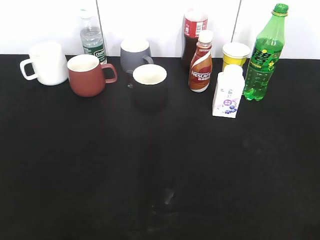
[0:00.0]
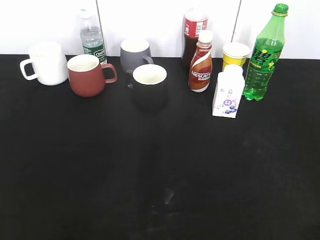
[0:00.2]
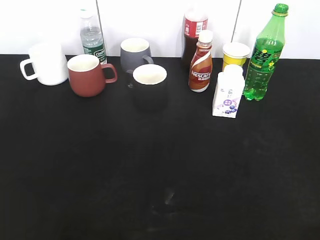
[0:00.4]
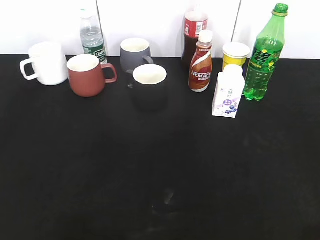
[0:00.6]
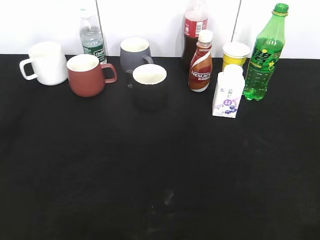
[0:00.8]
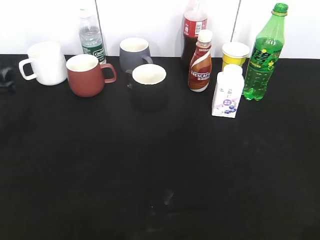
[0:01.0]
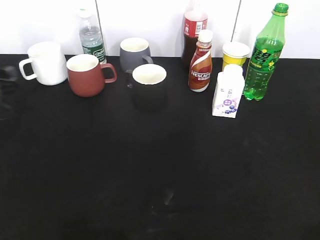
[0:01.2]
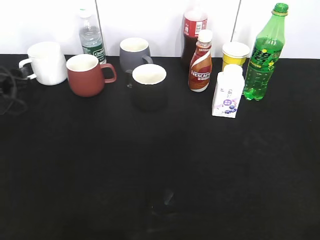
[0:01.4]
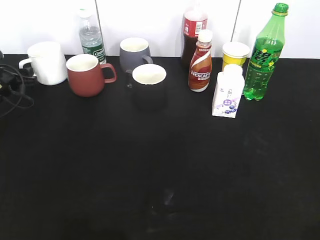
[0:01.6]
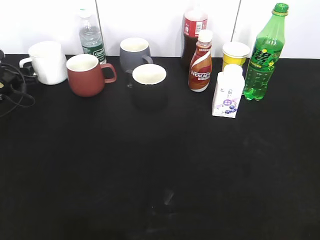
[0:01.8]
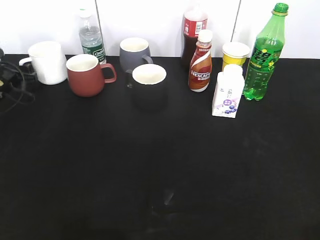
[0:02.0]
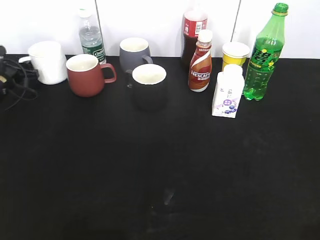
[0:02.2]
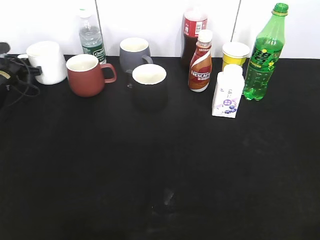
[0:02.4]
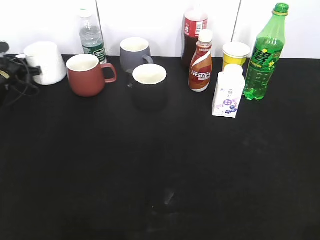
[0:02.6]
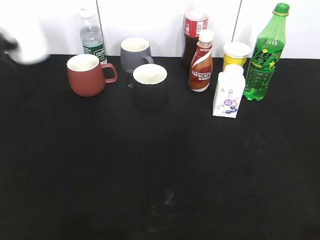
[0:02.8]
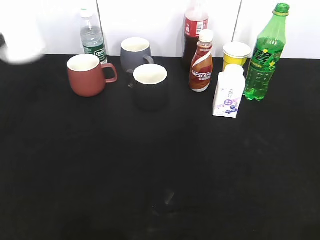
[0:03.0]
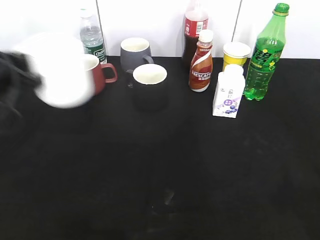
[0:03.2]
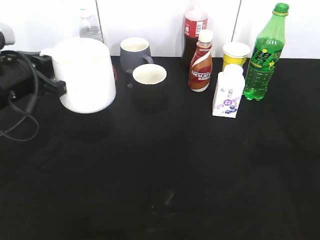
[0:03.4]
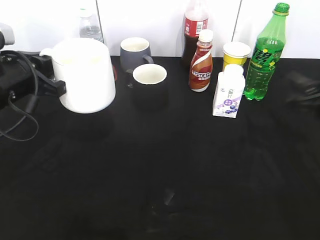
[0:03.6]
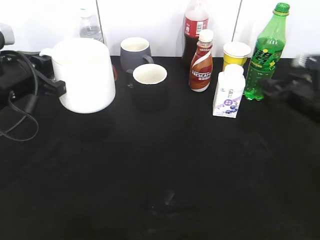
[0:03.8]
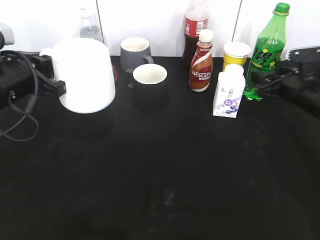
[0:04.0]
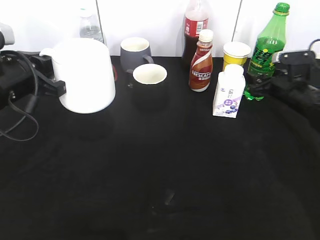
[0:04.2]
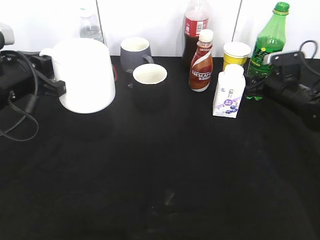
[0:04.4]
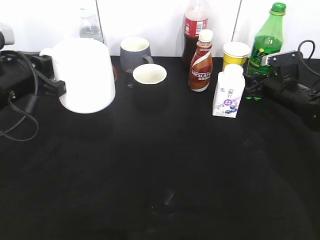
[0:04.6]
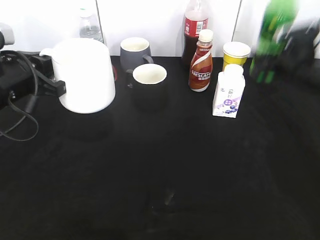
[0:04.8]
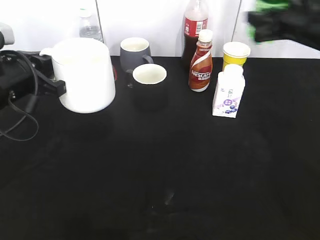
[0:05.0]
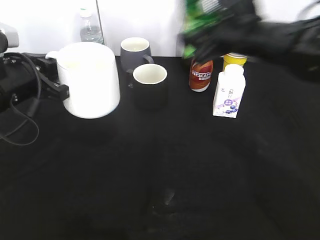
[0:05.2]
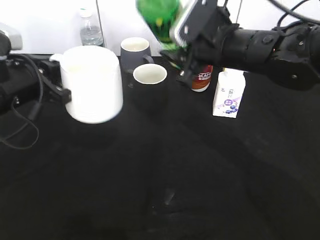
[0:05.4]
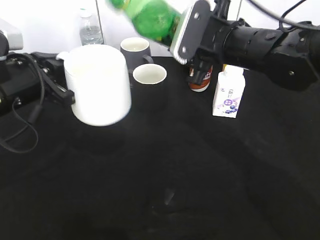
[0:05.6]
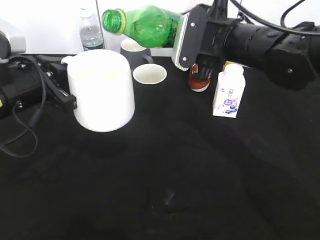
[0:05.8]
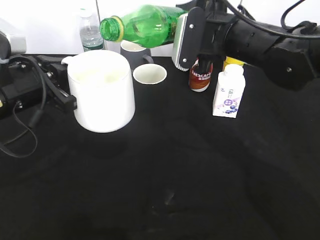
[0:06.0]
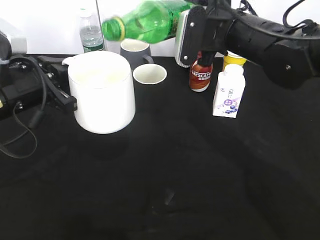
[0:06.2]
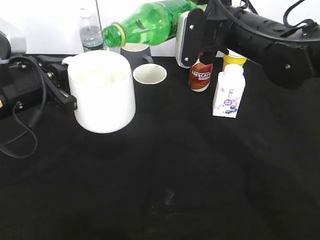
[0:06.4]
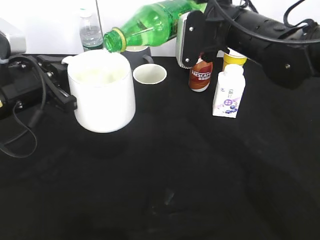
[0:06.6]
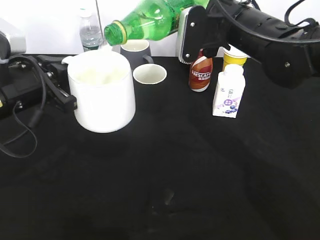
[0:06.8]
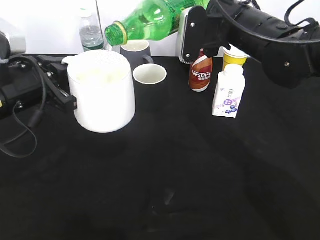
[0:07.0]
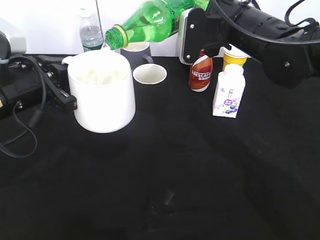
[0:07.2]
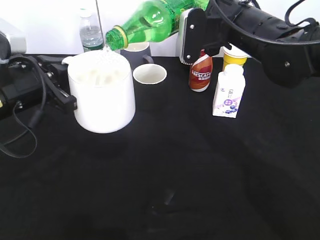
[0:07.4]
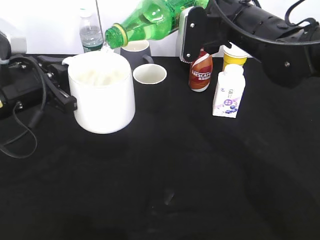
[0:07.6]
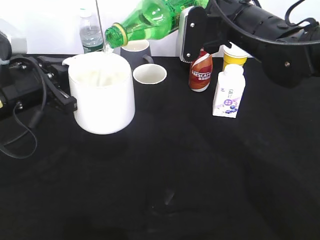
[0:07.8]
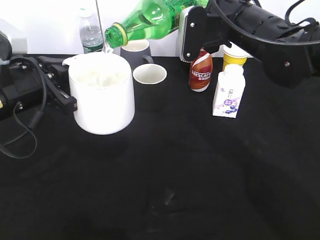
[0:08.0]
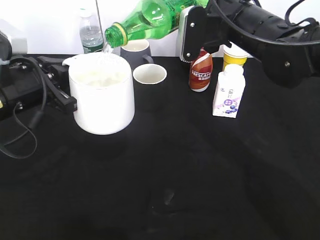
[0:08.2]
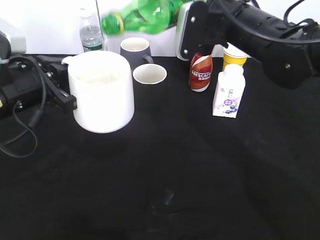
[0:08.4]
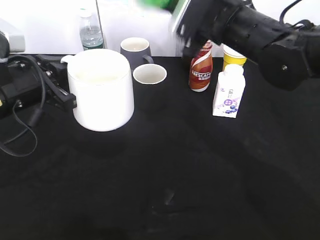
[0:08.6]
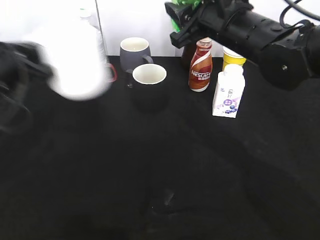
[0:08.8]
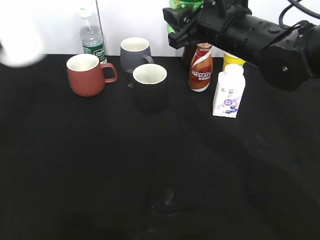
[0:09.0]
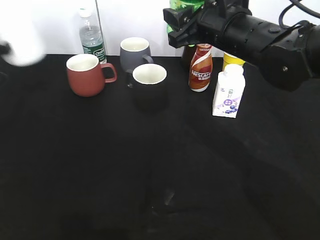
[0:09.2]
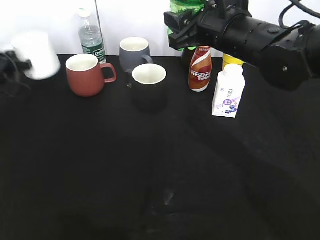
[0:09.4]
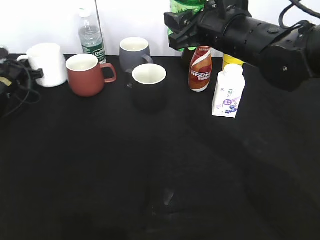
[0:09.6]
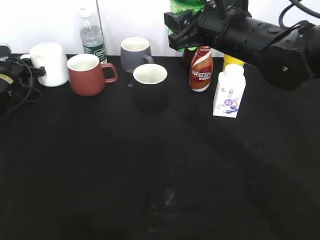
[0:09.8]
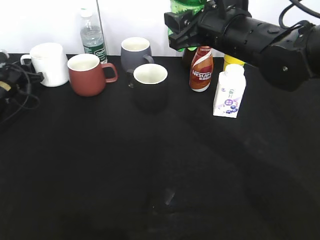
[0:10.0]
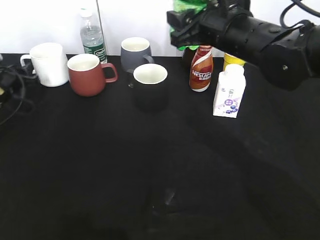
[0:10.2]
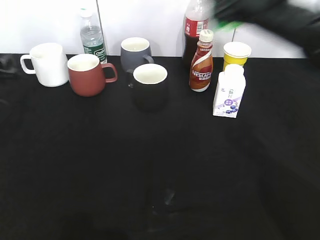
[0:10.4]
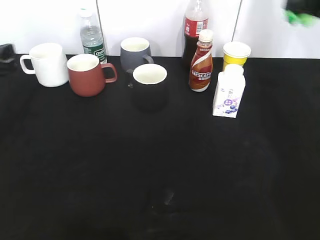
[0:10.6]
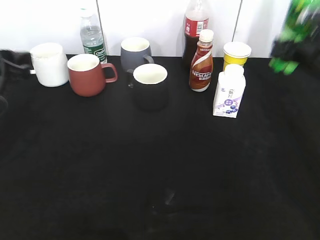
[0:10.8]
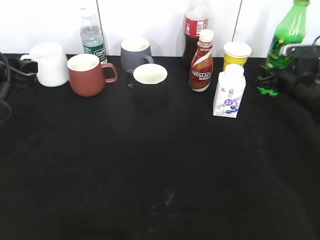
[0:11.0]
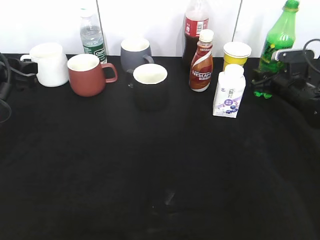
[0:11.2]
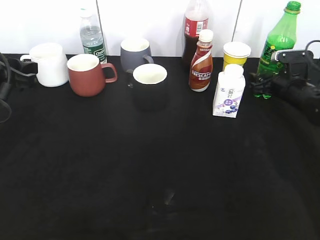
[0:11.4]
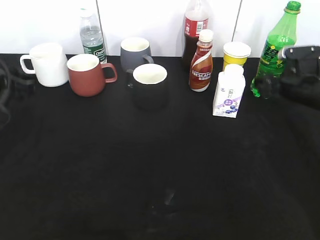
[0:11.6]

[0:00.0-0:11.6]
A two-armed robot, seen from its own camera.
Step, 0:00.0 to 0:02.4: Grasp the white cup with left gripper.
Step, 0:02.8 to 0:03.2: Lift the white cup with left gripper.
Step, 0:03.6 to 0:04.4: Grasp the bottle with sprite with right gripper.
Step, 0:04.8 to 0:08.4: Pour the sprite from bottle to cup with right gripper.
Step, 0:08.6 to 0:10.0: Place the white cup on the table with left gripper.
Step, 0:10.4 to 0:11.6: Place the sprite bottle on the table with right gripper.
0:00.0 to 0:01.4: The left gripper shifts about 50 cm forward and downward.
0:01.4 to 0:02.8: The left gripper goes about 10 cm upward, and closes.
0:02.8 to 0:04.4: The right gripper travels forward and downward by roughly 50 cm, and opens and closes again; the left gripper is displaced backward and to the right by some 20 cm.
0:04.4 to 0:05.8: The right gripper moves to the left, upward and backward, roughly 25 cm, and closes up.
0:08.8 to 0:10.2: The left gripper shifts roughly 25 cm forward, downward and to the left, and opens its fingers.
0:10.2 to 0:11.6: The left gripper moves backward, upward and to the right, roughly 20 cm. Meanwhile the right gripper is displaced to the right and downward by about 25 cm, and opens.

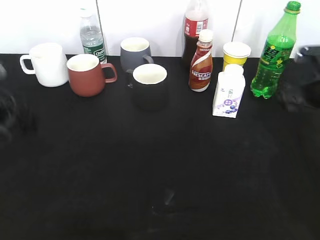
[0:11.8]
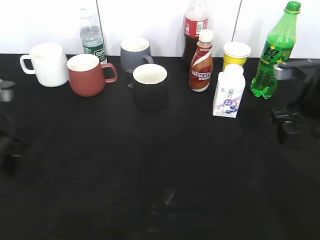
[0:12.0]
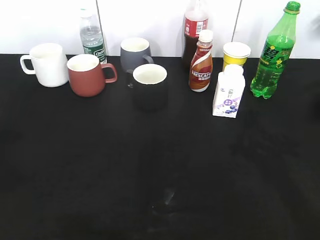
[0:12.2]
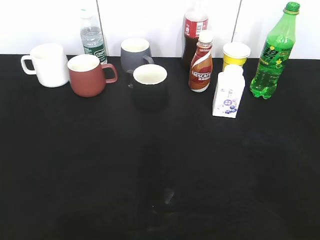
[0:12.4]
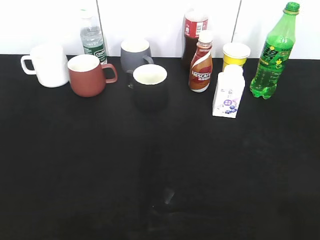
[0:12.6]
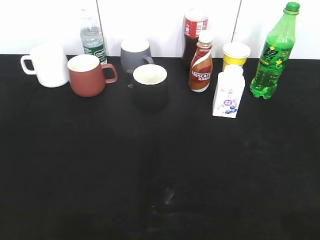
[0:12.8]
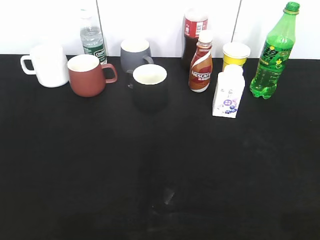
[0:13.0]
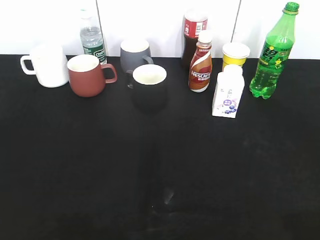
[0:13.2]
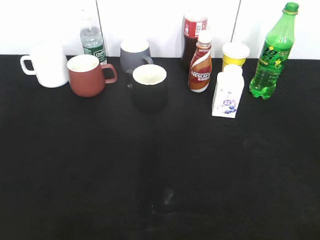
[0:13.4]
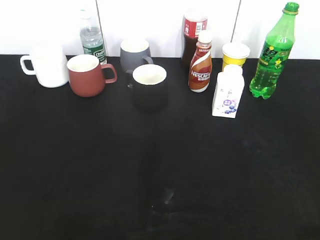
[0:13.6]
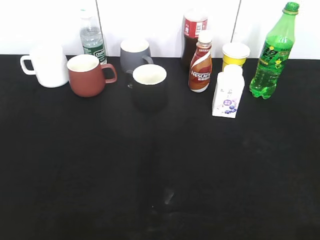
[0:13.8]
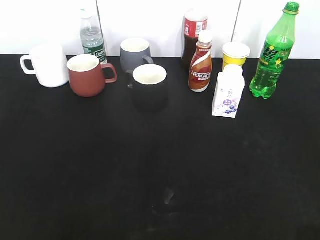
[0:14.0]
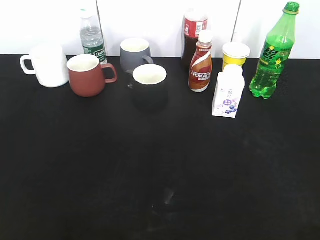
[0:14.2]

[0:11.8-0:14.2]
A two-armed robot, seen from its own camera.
0:11.8 to 0:13.0: The two grippers go about 30 cm backward and upward.
